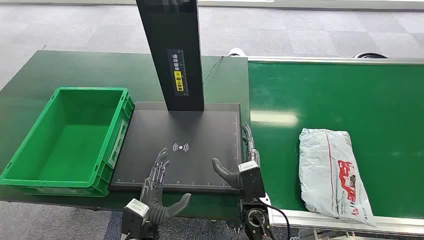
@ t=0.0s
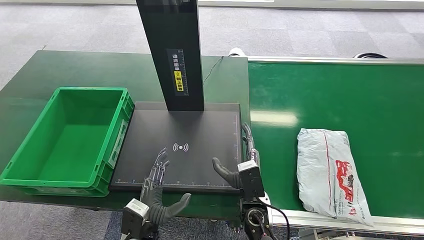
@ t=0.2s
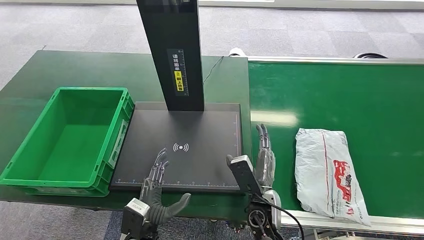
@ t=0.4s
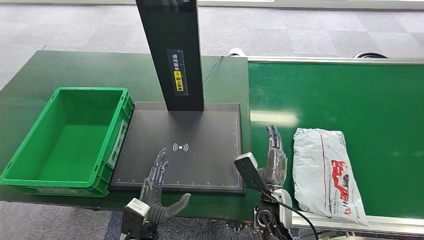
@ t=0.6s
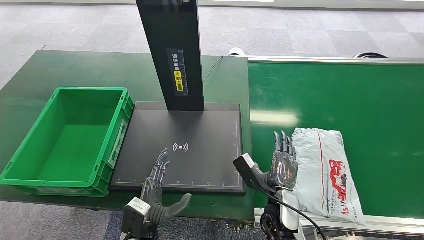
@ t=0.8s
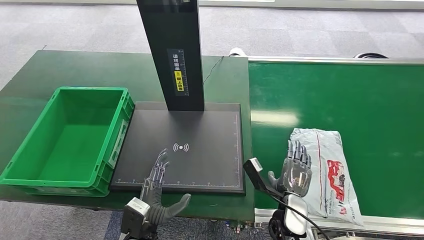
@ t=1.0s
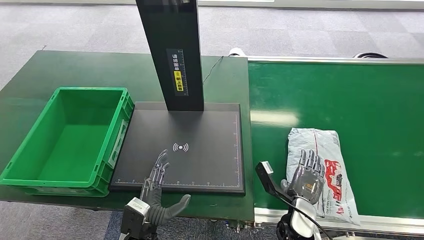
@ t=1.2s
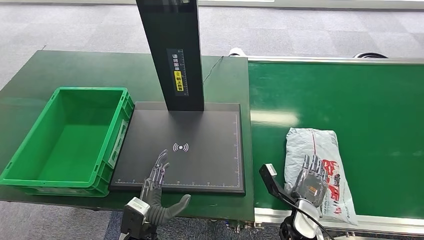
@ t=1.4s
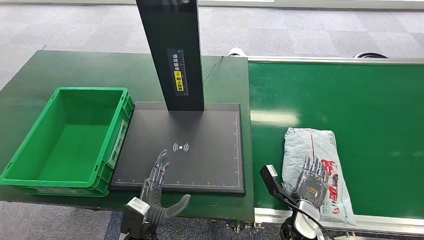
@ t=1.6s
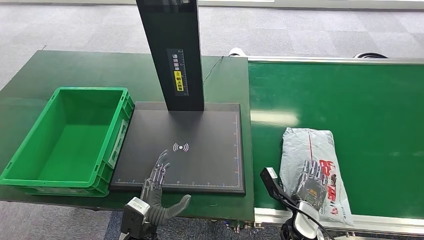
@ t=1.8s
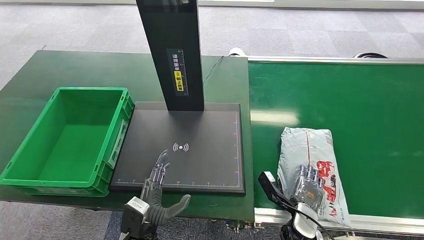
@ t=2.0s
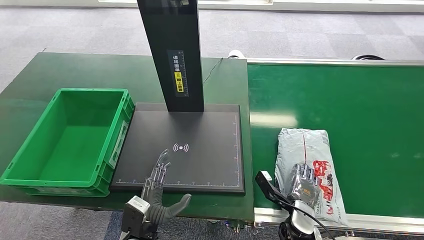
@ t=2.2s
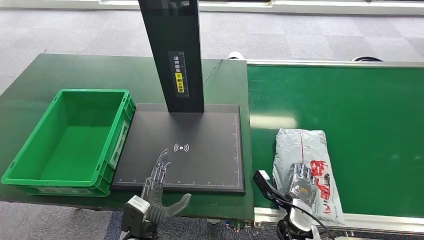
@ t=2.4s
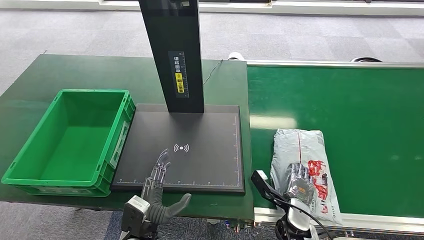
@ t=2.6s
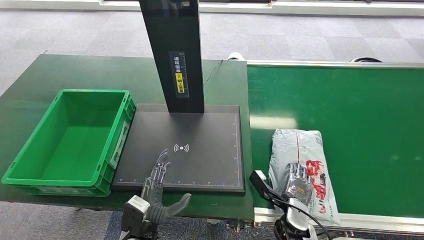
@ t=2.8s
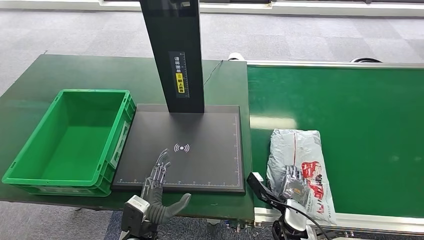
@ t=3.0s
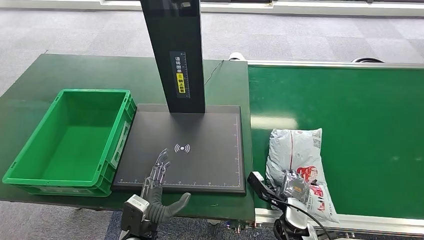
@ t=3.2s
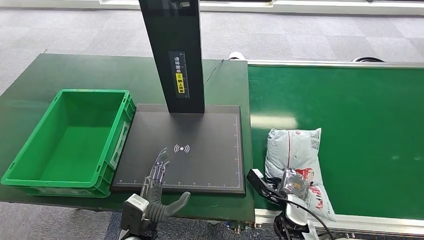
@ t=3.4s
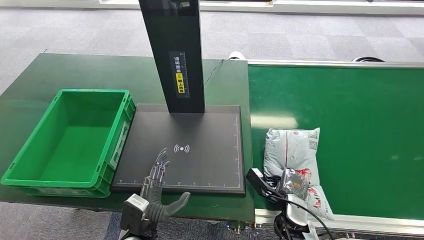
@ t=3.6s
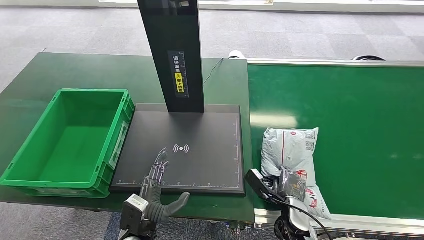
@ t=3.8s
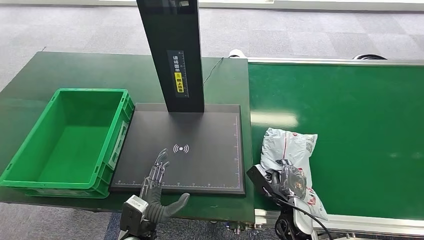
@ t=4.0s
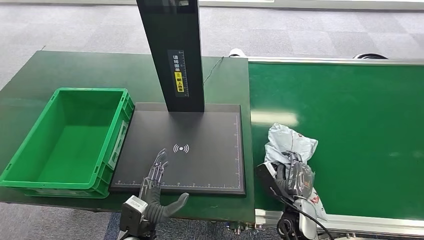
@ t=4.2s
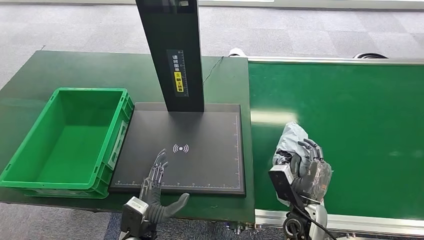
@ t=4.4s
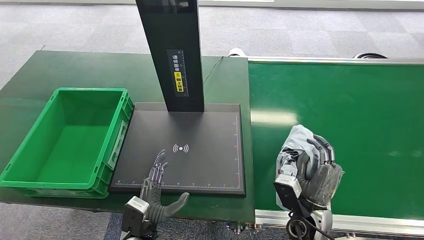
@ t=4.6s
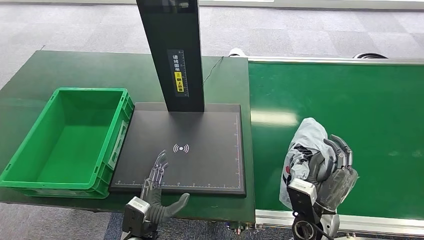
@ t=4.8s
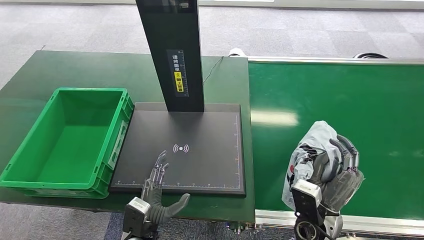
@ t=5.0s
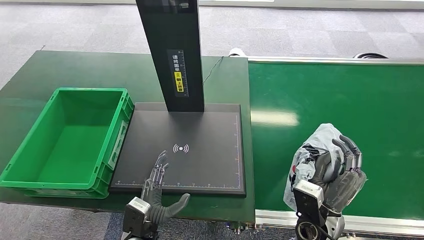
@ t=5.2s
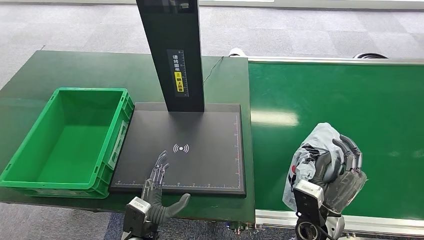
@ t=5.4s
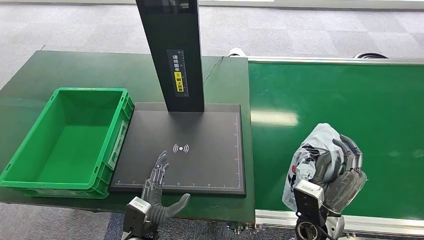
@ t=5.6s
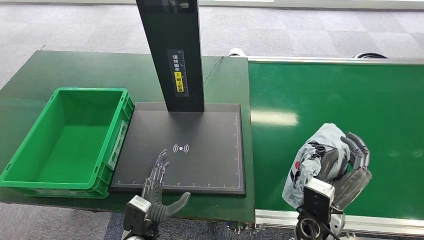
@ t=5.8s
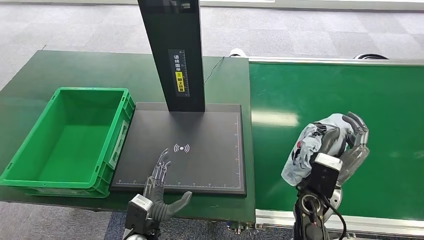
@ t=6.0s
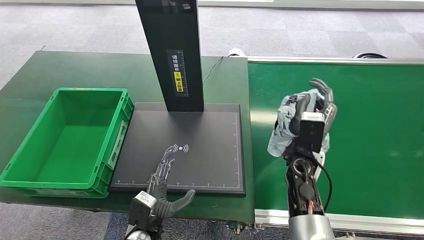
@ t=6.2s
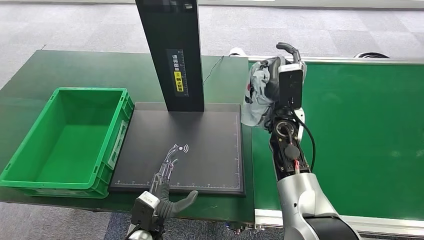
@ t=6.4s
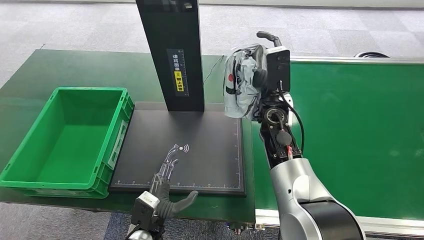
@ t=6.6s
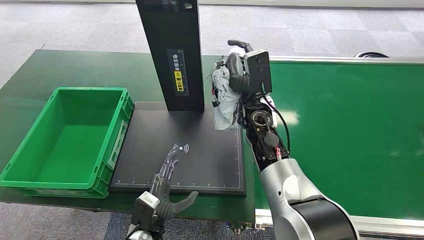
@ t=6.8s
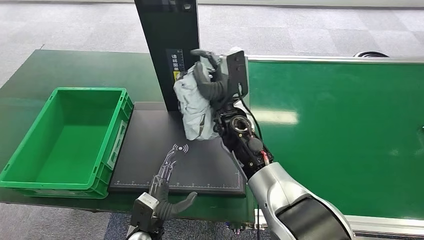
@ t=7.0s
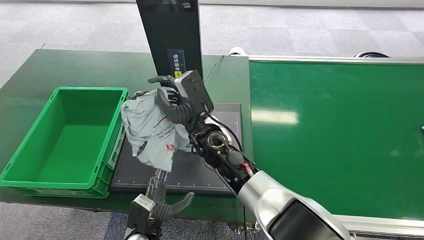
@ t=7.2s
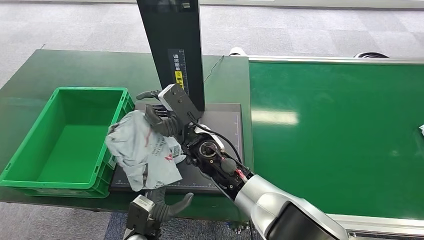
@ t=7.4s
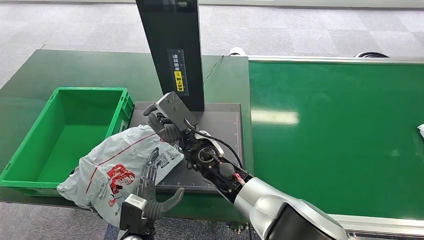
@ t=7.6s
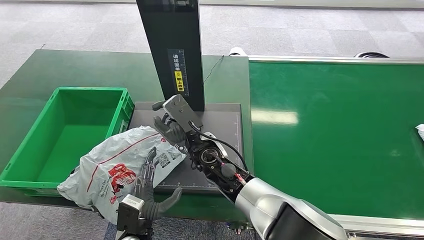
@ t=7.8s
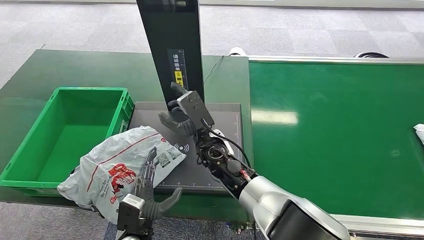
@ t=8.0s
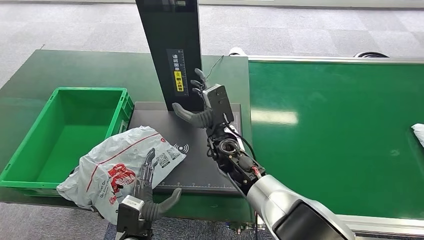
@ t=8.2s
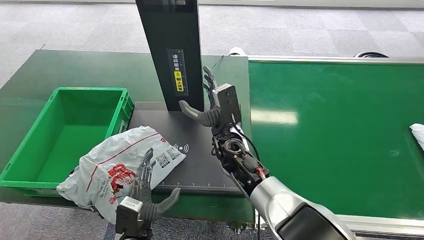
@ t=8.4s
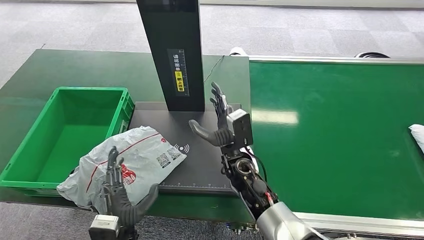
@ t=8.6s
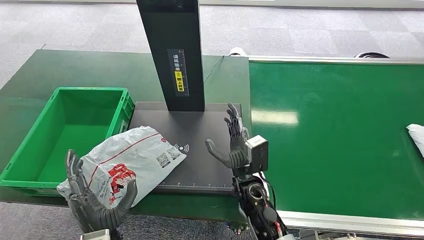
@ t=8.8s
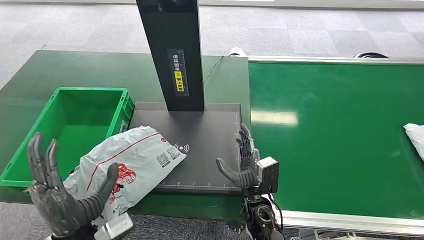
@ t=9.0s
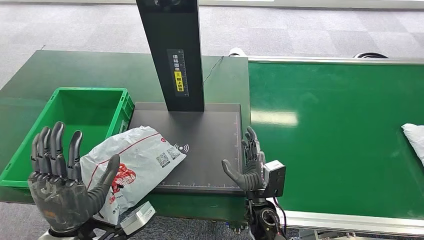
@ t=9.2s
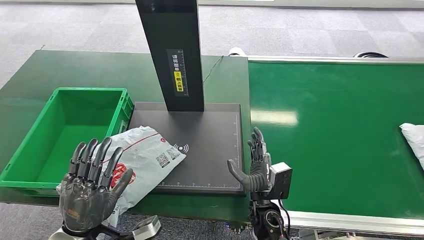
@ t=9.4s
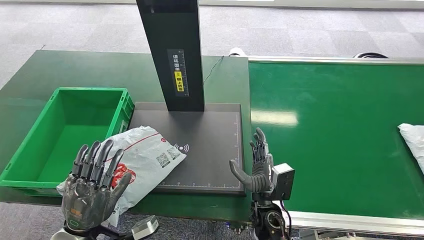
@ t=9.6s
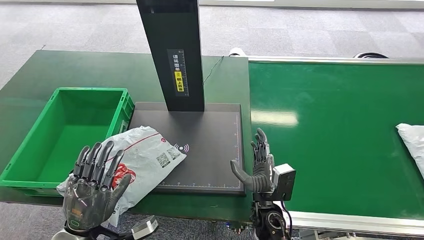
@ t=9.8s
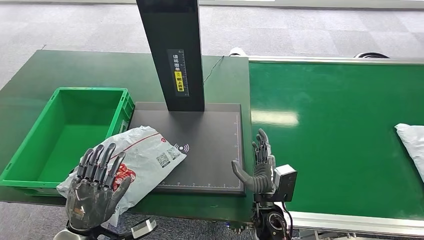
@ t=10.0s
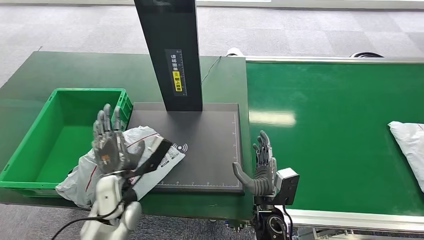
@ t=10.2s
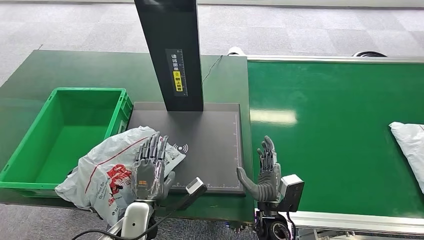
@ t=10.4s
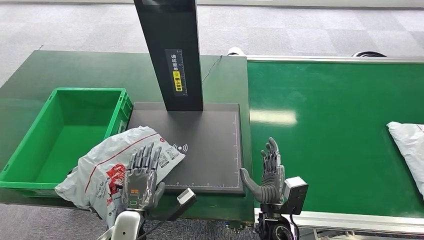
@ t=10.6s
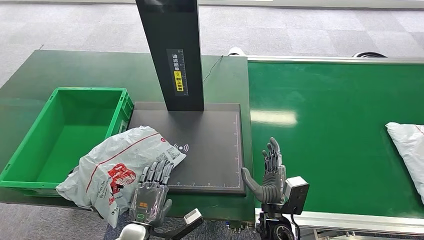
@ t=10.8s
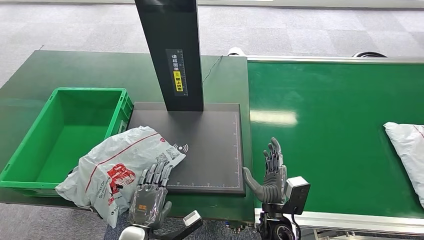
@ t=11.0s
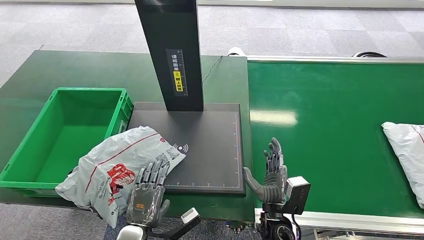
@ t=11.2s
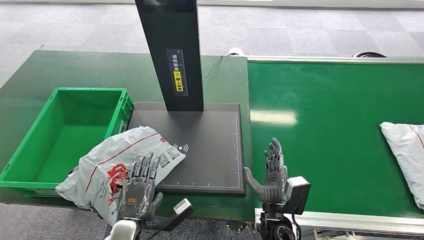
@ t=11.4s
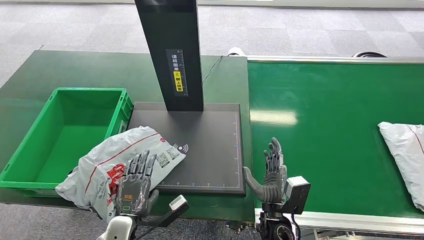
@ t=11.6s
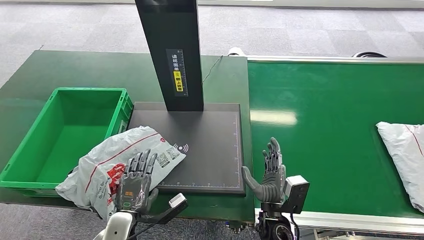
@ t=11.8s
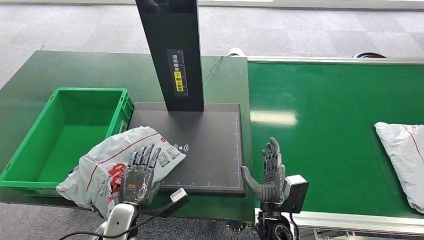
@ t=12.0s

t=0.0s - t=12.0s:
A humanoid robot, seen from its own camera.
Step, t=0.0s - t=4.6s: Pick up the package from the conveyor belt.
Step, t=5.0s - t=9.2s: Place the package onto the inbound machine.
t=1.6s - t=3.0s: The hands move only a little.
t=4.4s - t=6.0s: The right hand is displaced upward by some 5 cm.
t=7.6s - t=9.0s: The left hand shifts roughly 15 cm upward and to the left, while the right hand is displaced downward, to the right and backward by roughly 20 cm.
t=9.0s - t=10.4s: The left hand goes roughly 10 cm downward, to the right and forward.
t=10.4s - t=12.0s: The left hand is displaced to the left by some 5 cm.

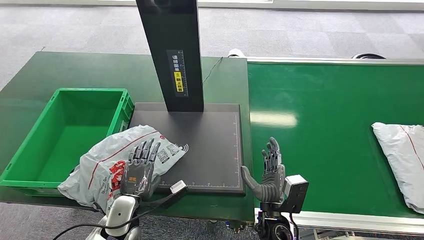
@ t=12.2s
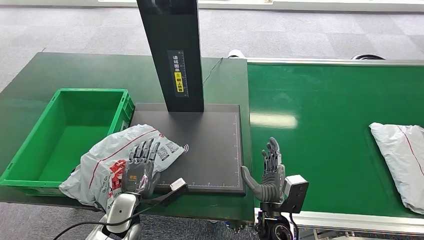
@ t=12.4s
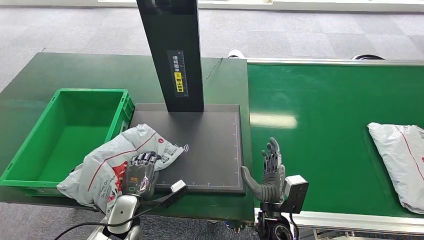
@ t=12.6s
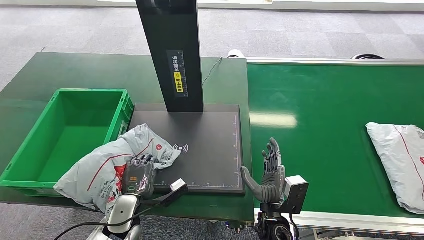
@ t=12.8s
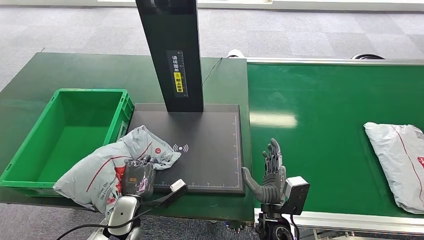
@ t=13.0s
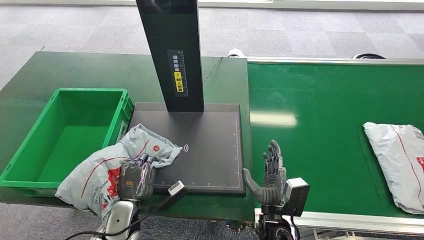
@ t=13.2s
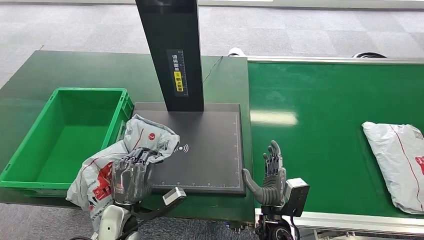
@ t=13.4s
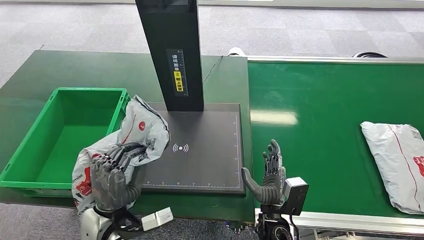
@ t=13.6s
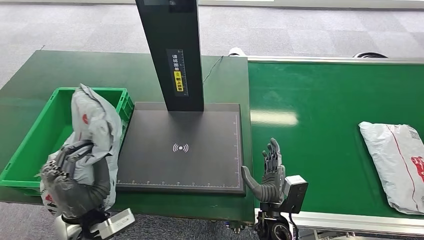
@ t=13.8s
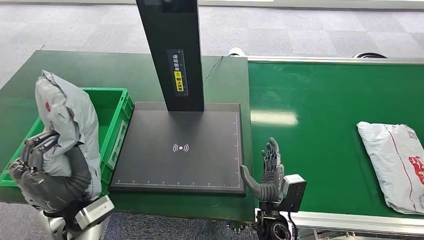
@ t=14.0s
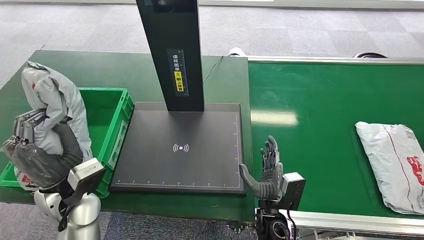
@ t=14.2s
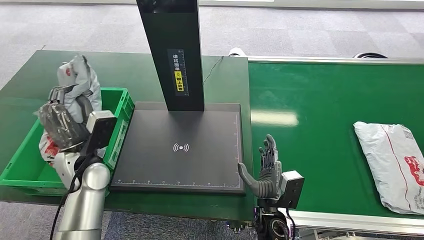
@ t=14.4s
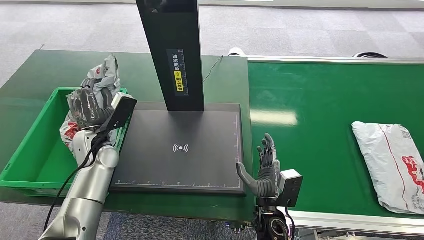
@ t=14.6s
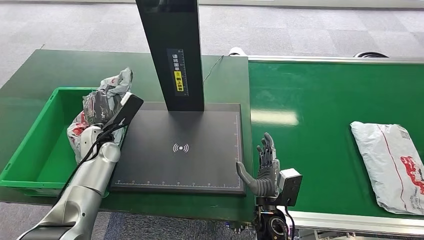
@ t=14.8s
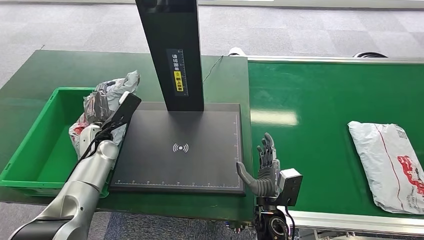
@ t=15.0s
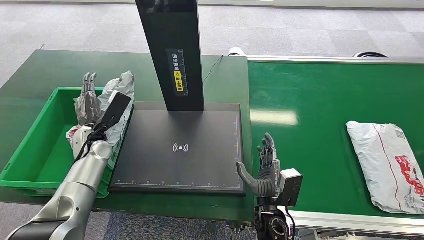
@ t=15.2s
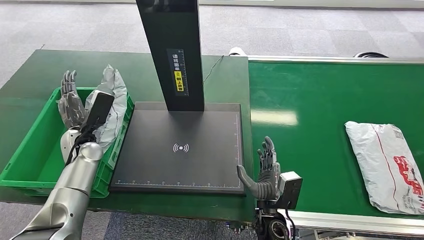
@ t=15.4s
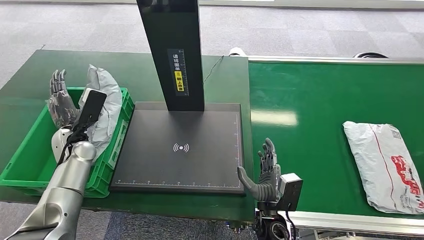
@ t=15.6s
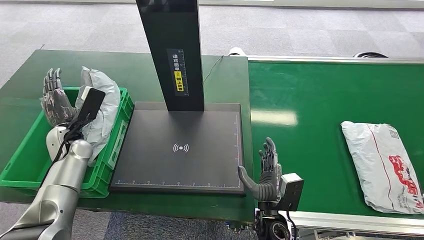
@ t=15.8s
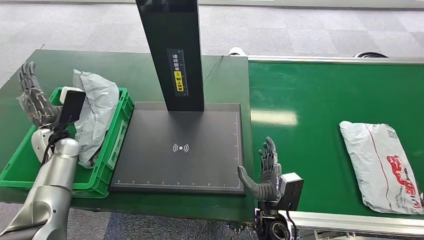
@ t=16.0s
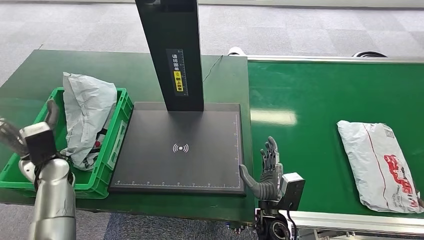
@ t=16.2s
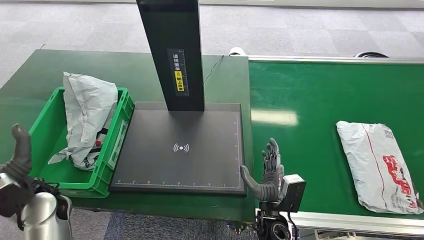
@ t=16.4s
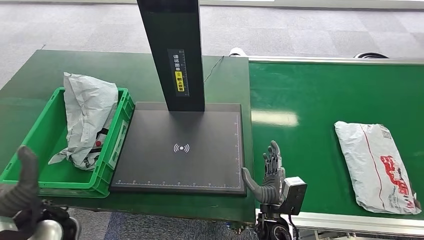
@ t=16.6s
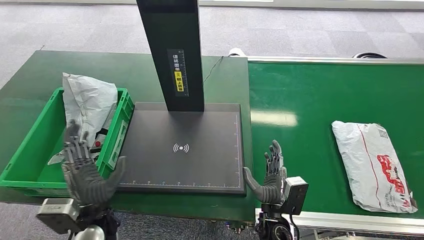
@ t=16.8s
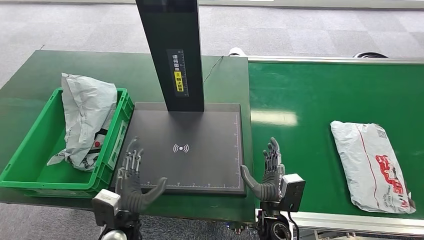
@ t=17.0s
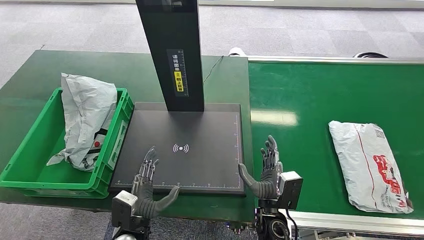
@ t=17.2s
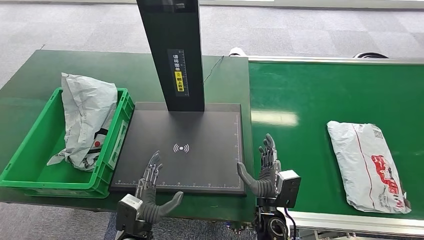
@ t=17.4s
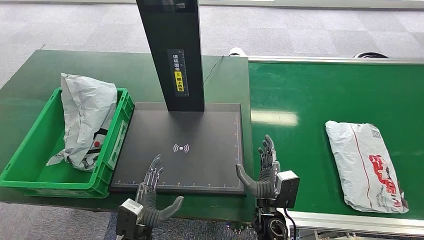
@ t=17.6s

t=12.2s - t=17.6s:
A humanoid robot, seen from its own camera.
Step, t=14.2s - t=17.6s: Place the package into the parcel locker.
t=12.2s - t=13.6s: The left hand shifts roughly 10 cm upward.
t=13.6s - t=15.0s: The left hand is displaced forward and to the left by approximately 25 cm.
t=15.0s - t=16.2s: The left hand heads to the left and backward, covering roughly 10 cm.
t=16.2s - t=17.6s: The left hand heads to the right, backward and downward, covering some 30 cm.
